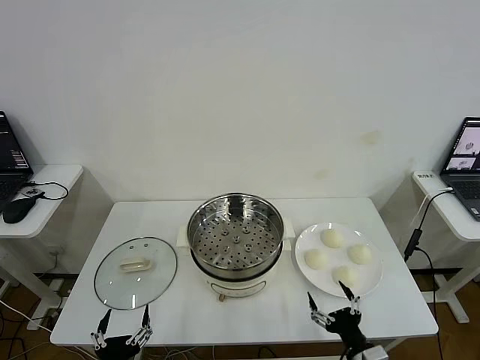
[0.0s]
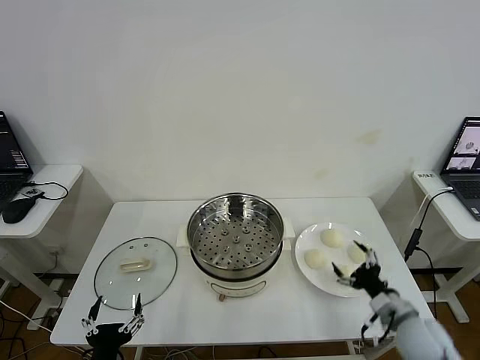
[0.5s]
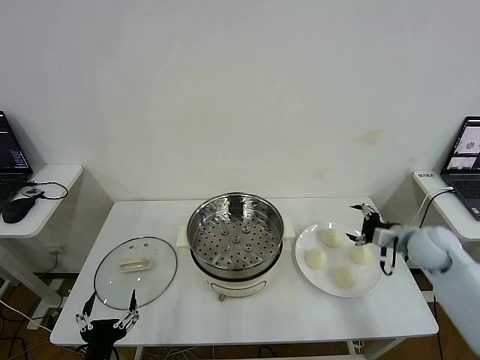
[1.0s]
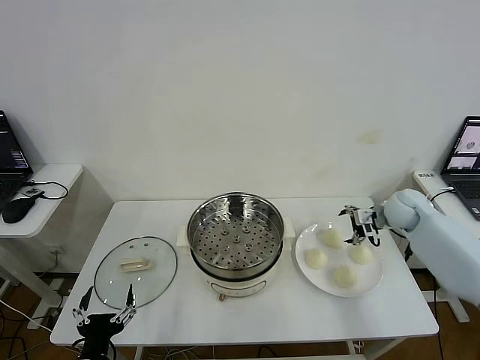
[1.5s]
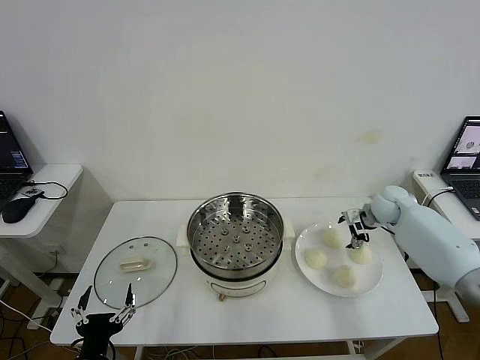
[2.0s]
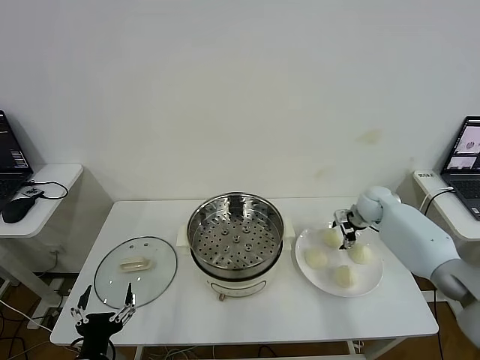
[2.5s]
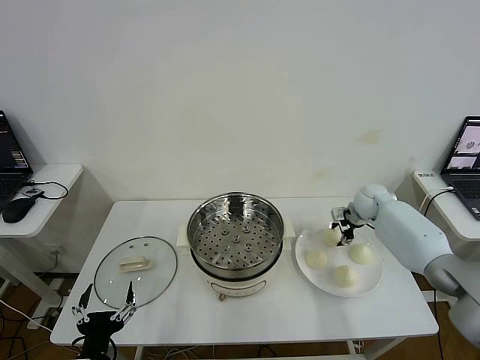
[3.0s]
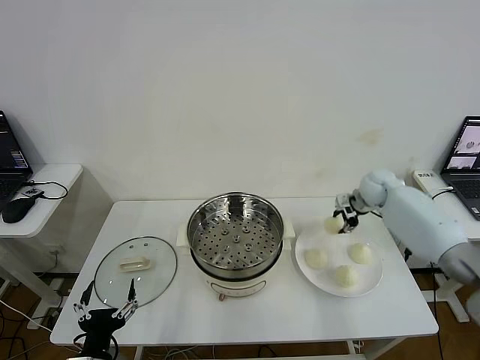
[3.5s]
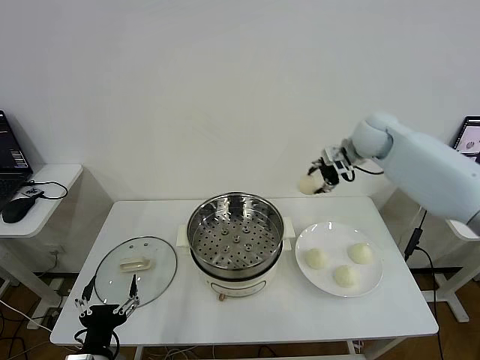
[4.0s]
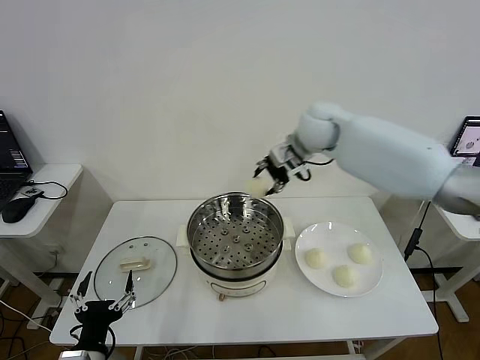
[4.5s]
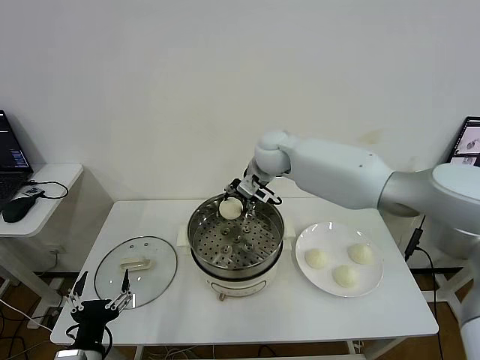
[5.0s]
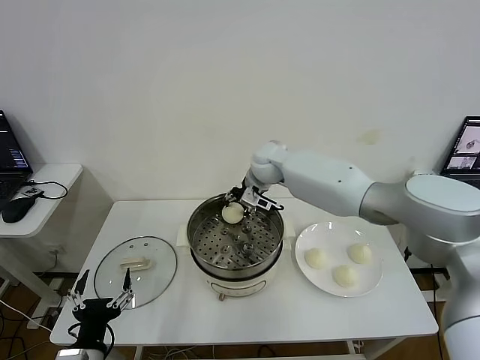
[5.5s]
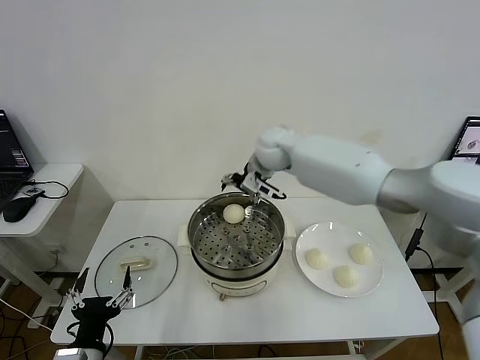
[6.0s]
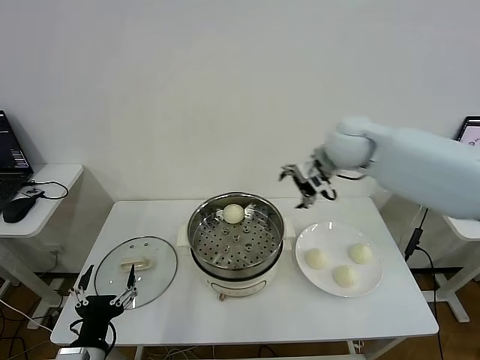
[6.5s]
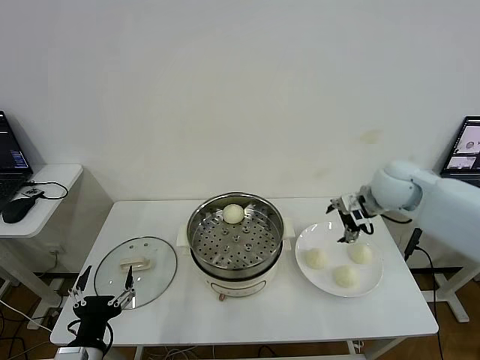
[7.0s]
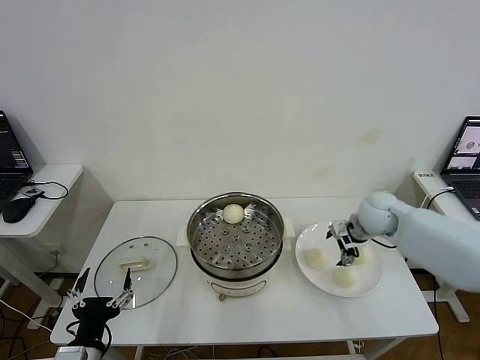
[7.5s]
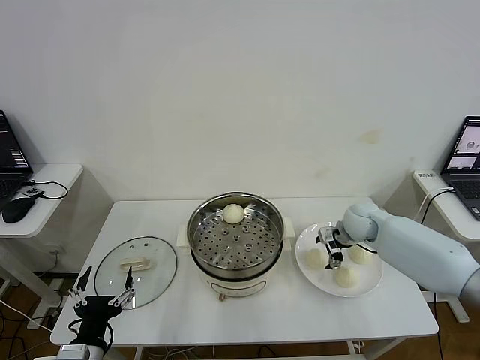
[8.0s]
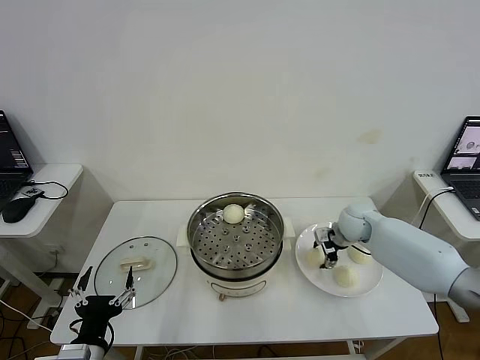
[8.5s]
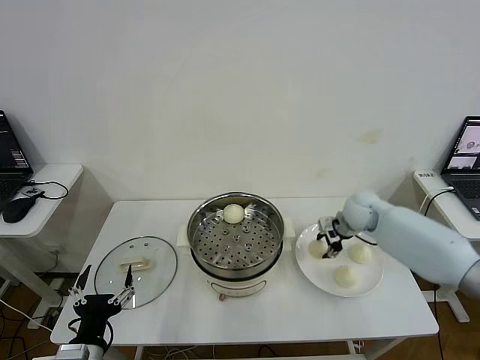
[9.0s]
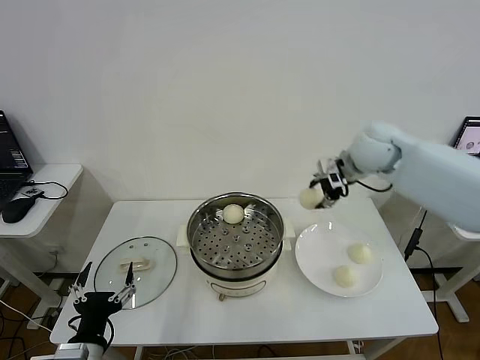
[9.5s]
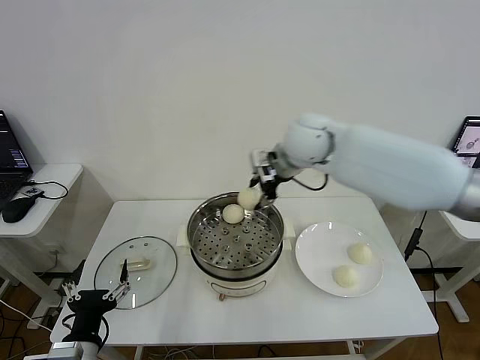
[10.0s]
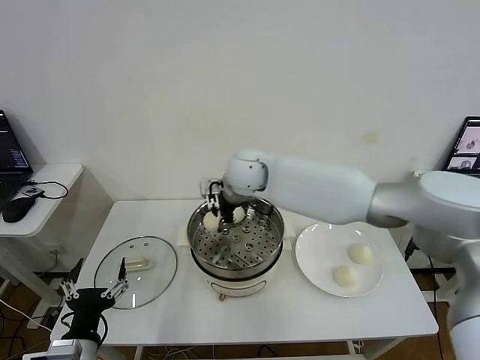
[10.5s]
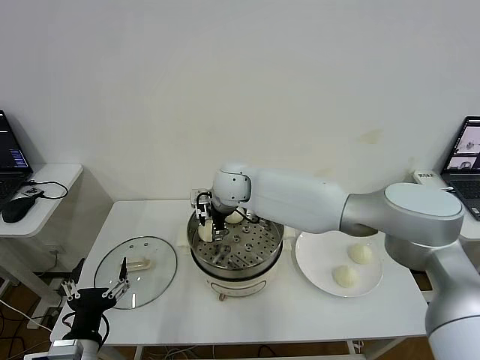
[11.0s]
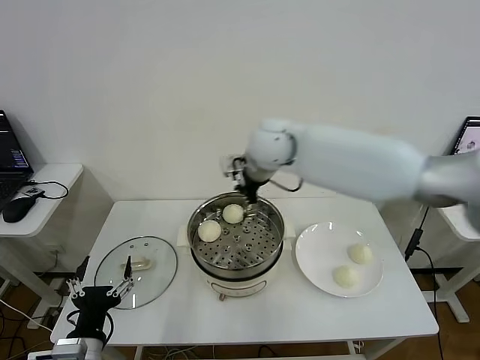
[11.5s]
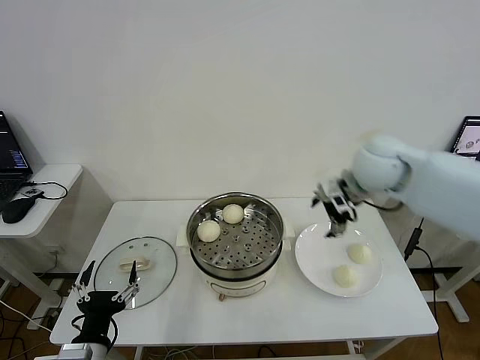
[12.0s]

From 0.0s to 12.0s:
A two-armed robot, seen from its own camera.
Step, from 0.0s to 2.5s: Grasp the baozi in the plate with right gripper.
Step, from 3.0s to 5.5s: Place the baozi on the steamer with right gripper.
Step, from 6.0s to 8.5s: Grasp the baozi in the plate with right gripper.
Step, from 9.0s to 11.0s: Place the baozi on the steamer with right gripper.
From 2.0s to 4.0s: The right gripper travels upward and to the left by about 25 cm, and closes.
From 4.0s to 6.0s: The right gripper is displaced to the left by approximately 15 cm, and opens its fingers.
From 6.0s to 8.0s: The right gripper moves to the right and downward, roughly 30 cm.
From 8.0s to 10.0s: The right gripper is displaced upward and to the left by approximately 30 cm, and closes.
From 10.0s to 12.0s: The right gripper heads to the right, covering some 20 cm, and opens.

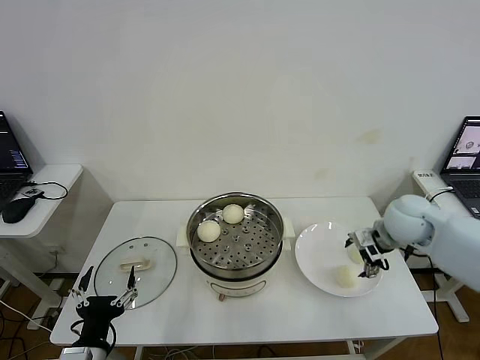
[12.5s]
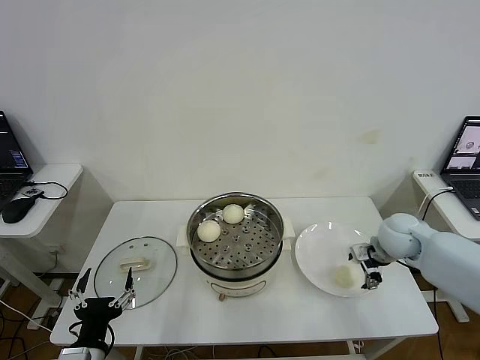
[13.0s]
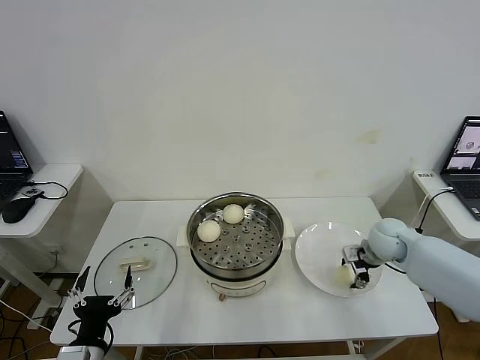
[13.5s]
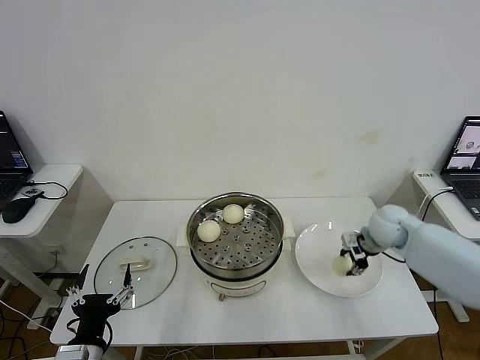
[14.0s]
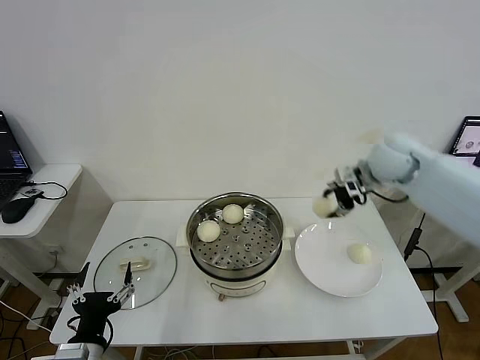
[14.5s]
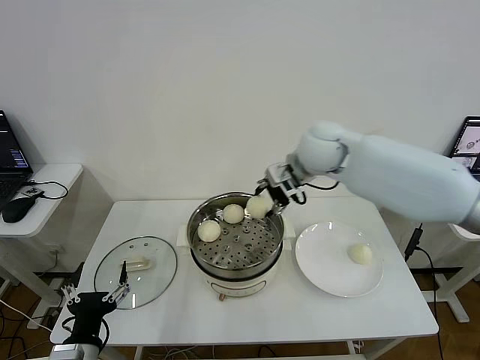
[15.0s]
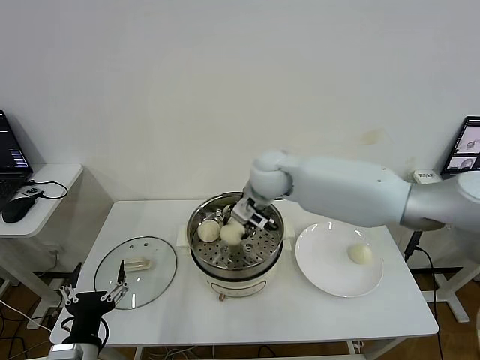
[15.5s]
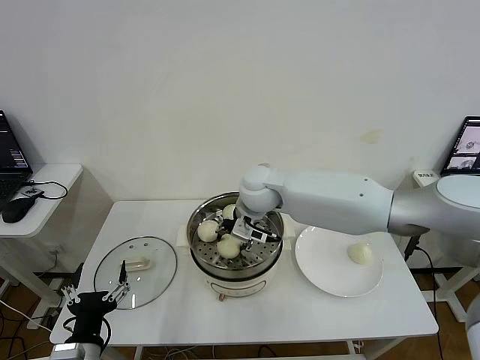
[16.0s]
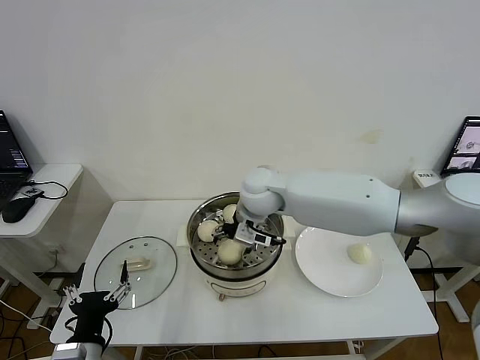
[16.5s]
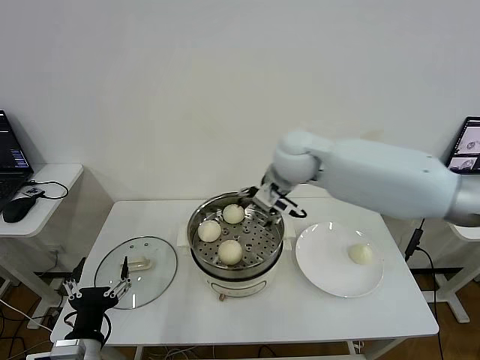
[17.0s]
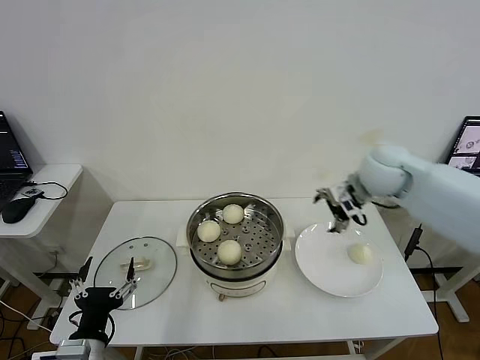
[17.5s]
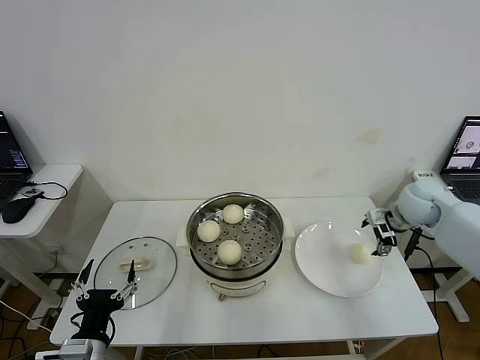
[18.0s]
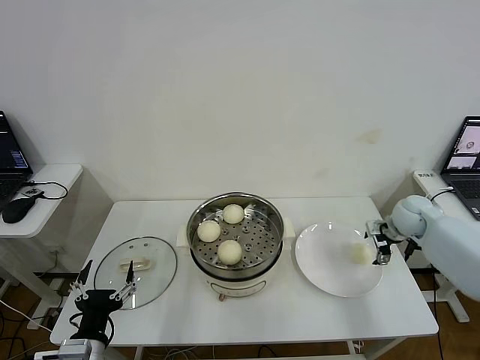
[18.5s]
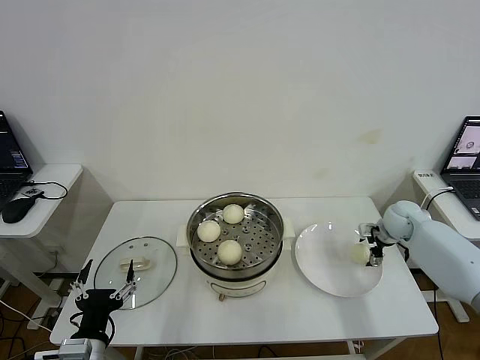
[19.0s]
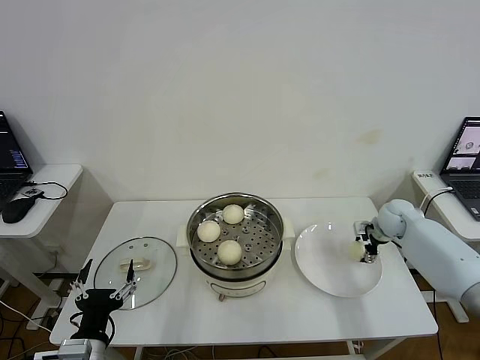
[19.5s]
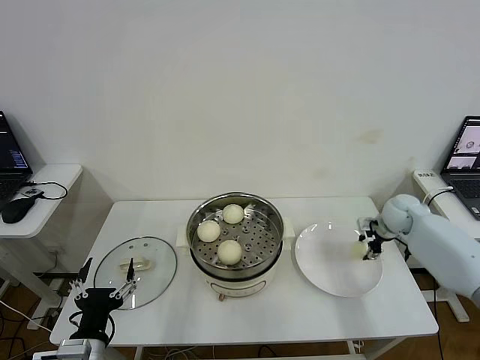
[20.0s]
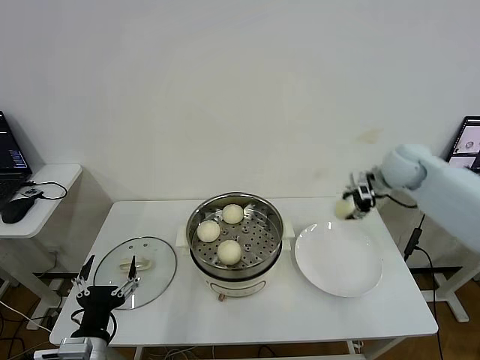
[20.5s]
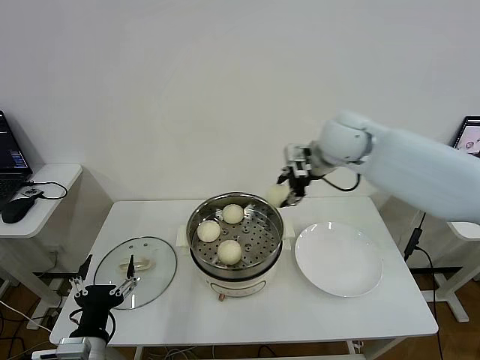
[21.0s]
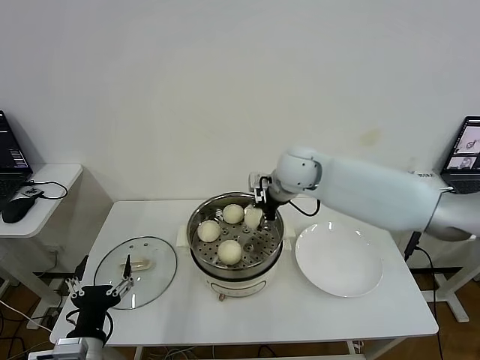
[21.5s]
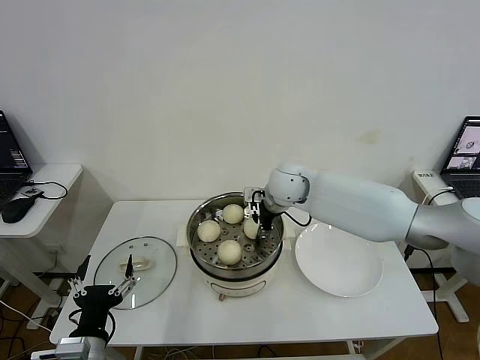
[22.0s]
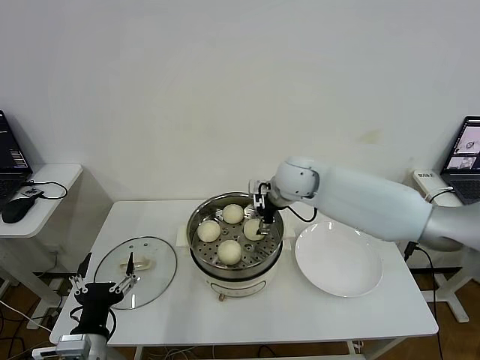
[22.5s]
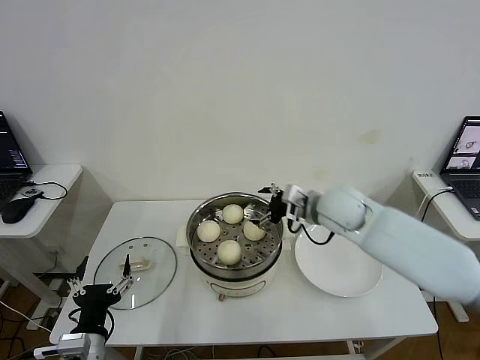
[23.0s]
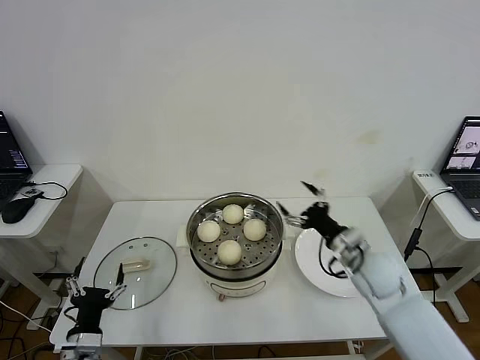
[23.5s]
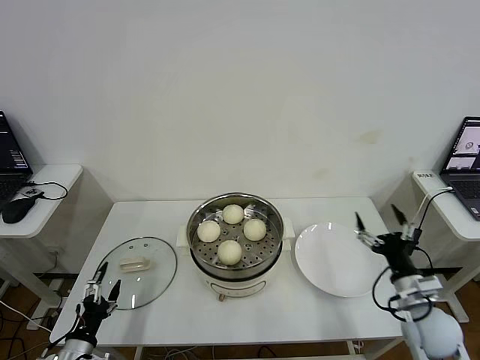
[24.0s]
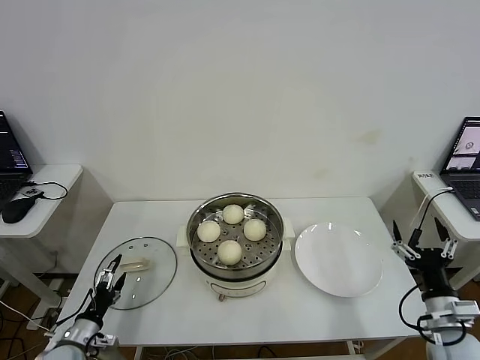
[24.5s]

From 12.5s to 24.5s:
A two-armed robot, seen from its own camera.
Step, from 14.0s to 16.5s: Place the baozi on the steamer with right gripper.
Step, from 17.0s to 19.5s: Grasp the baozi in the plate with right gripper.
Step, from 20.0s to 22.5s: Place the baozi on the steamer with right gripper.
From 12.5s to 14.5s: The right gripper goes about 15 cm upward, forward and to the left, and closes its fingers.
From 14.5s to 16.5s: The right gripper goes approximately 25 cm to the left, and opens its fingers.
From 16.5s to 18.5s: The right gripper heads to the right, covering some 40 cm.
From 18.5s to 20.5s: The right gripper is displaced upward and to the left by about 15 cm, and closes up.
From 20.5s to 22.5s: The right gripper moves to the left, about 25 cm, and opens up.
From 22.5s to 24.5s: The left gripper heads downward, to the left and forward, covering some 20 cm. Meanwhile the right gripper goes approximately 50 cm backward, to the right and downward.

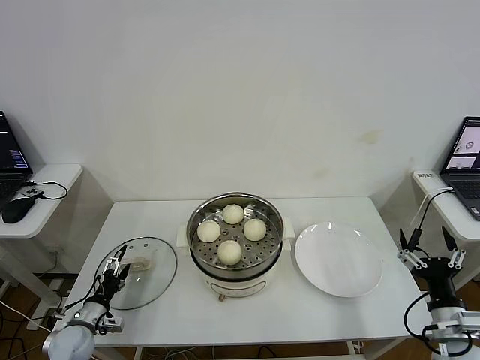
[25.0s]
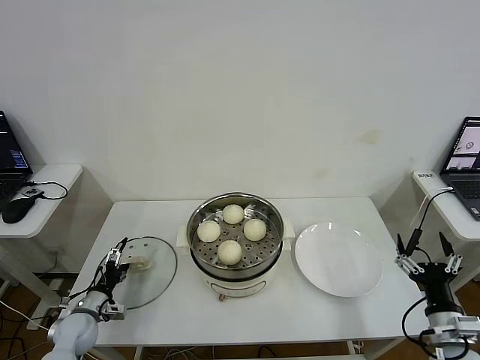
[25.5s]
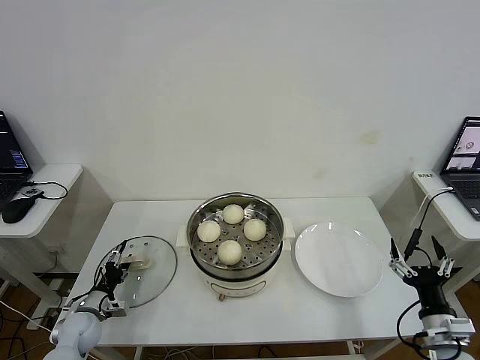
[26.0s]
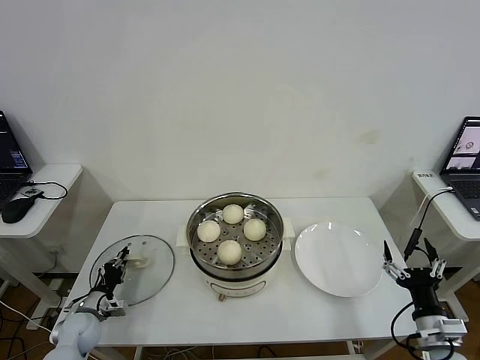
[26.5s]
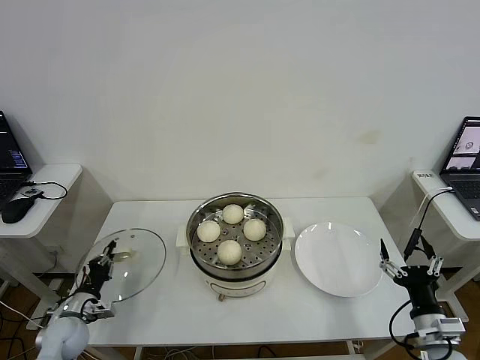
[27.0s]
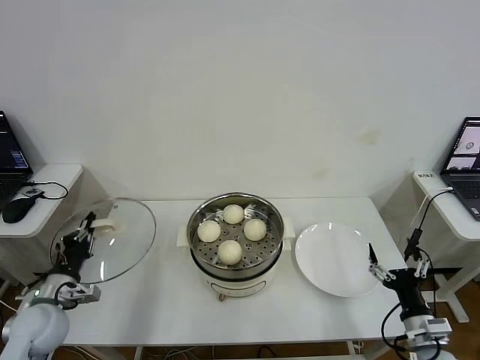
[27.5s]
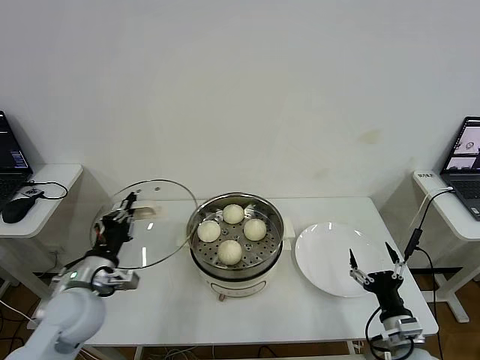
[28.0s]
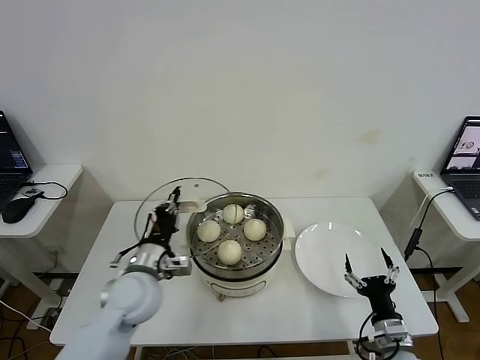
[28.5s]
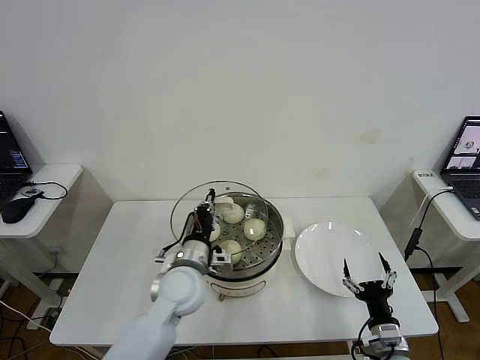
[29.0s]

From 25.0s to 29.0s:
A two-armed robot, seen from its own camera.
From 25.0s to 27.0s: The left gripper closes.
From 27.0s to 29.0s: The right gripper heads downward and to the left, covering about 10 cm. Meanwhile the left gripper is displaced to the right and upward by some 35 cm.
